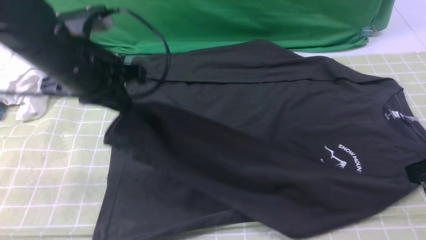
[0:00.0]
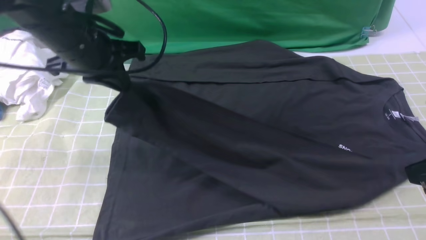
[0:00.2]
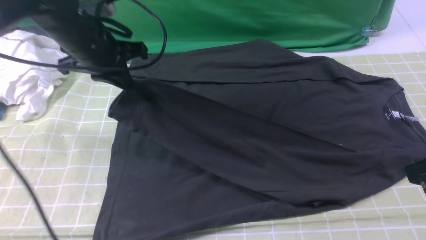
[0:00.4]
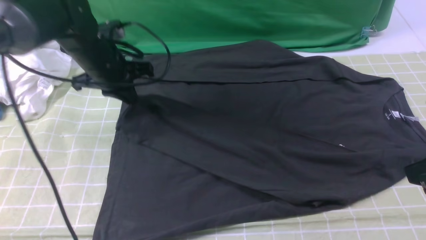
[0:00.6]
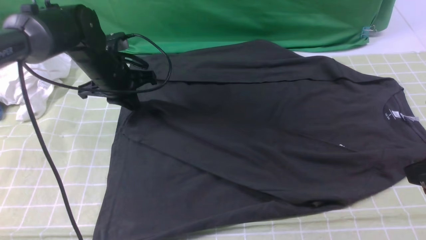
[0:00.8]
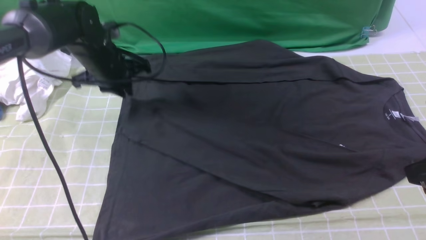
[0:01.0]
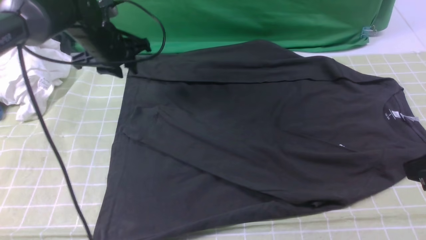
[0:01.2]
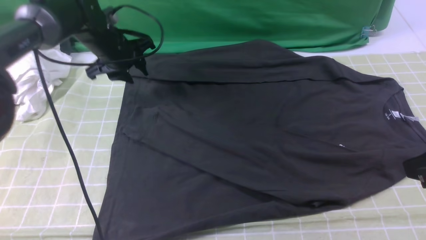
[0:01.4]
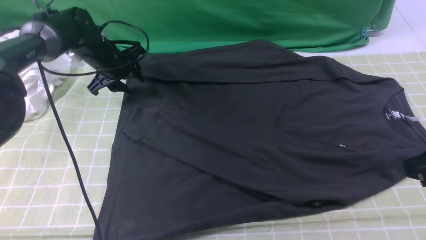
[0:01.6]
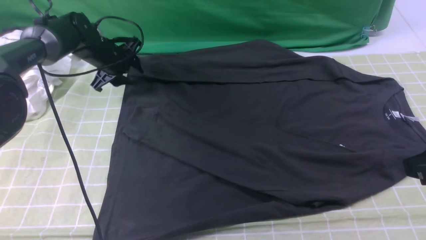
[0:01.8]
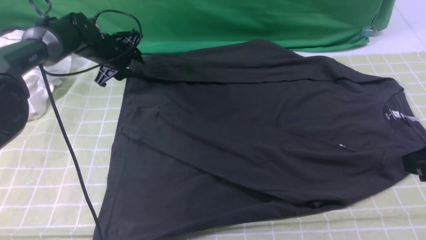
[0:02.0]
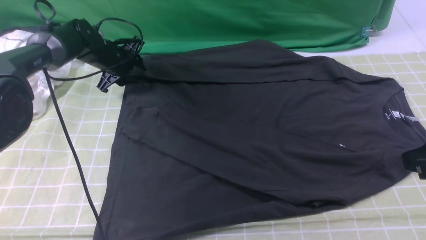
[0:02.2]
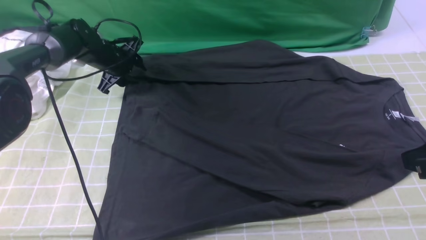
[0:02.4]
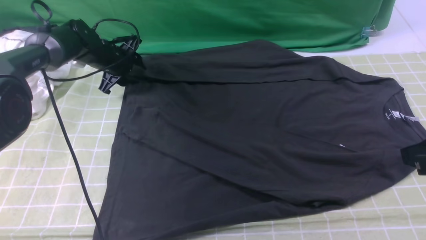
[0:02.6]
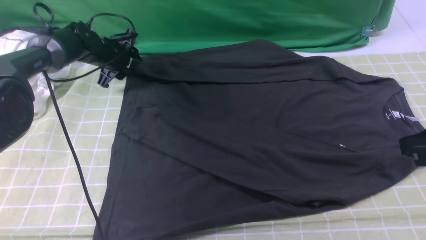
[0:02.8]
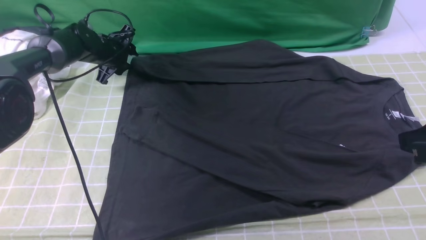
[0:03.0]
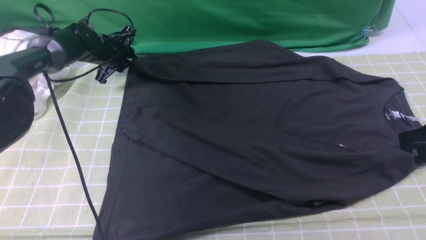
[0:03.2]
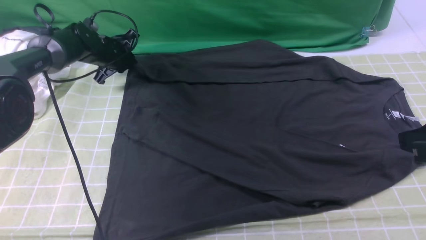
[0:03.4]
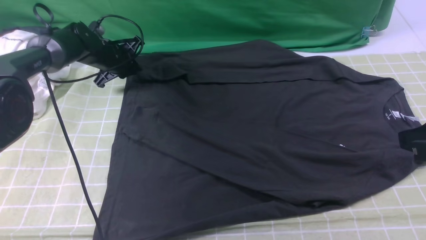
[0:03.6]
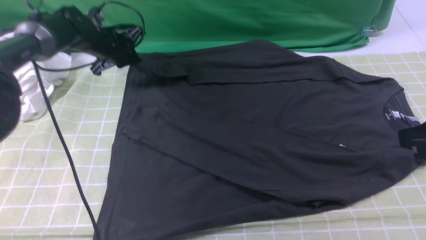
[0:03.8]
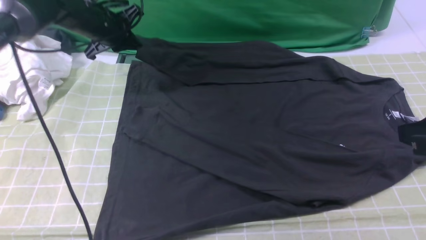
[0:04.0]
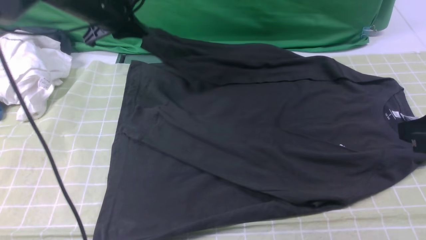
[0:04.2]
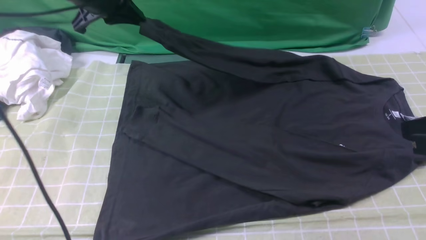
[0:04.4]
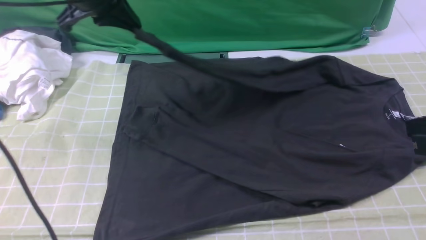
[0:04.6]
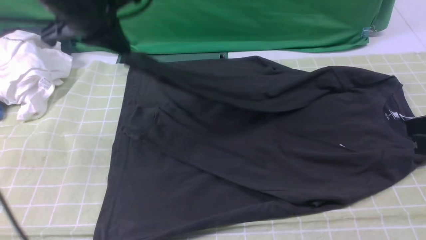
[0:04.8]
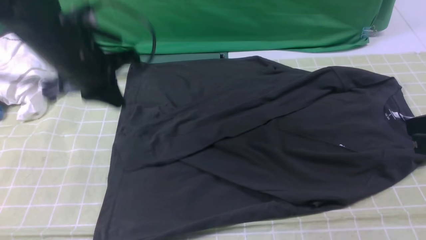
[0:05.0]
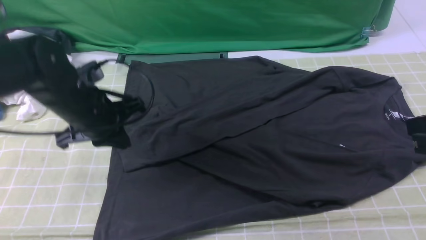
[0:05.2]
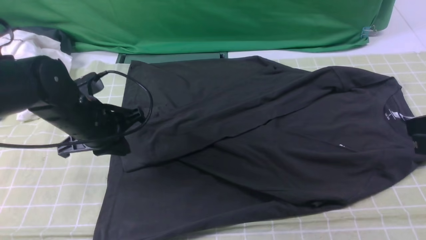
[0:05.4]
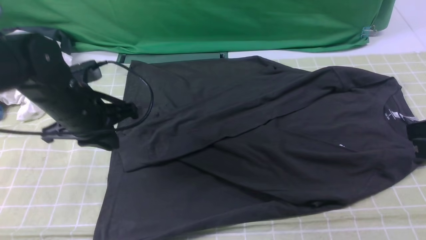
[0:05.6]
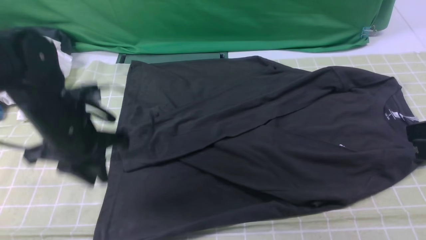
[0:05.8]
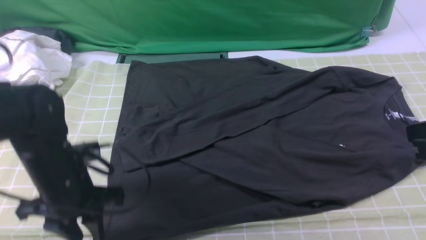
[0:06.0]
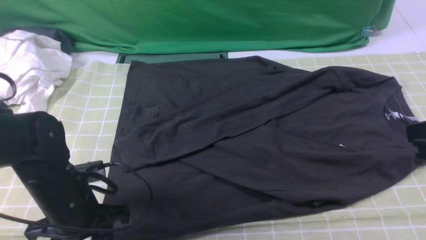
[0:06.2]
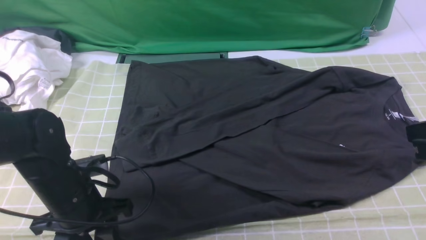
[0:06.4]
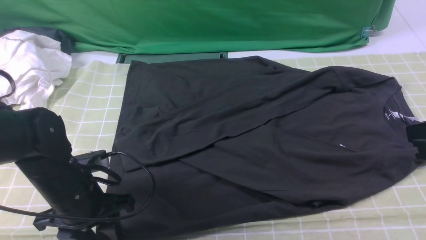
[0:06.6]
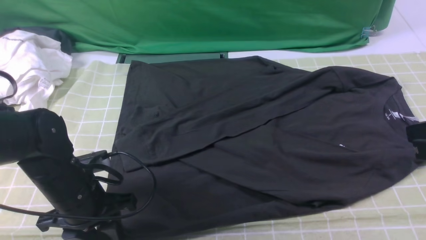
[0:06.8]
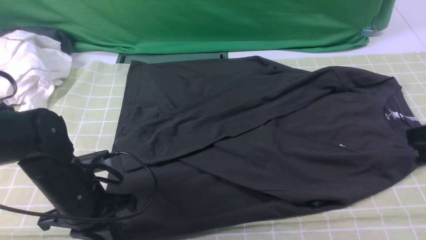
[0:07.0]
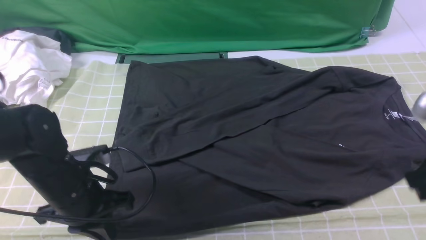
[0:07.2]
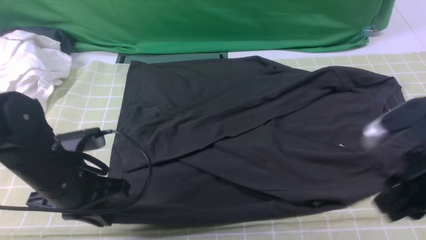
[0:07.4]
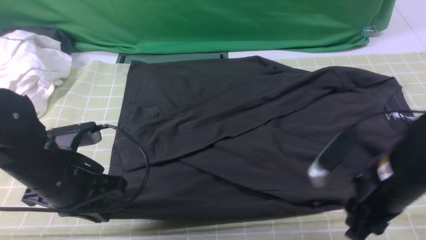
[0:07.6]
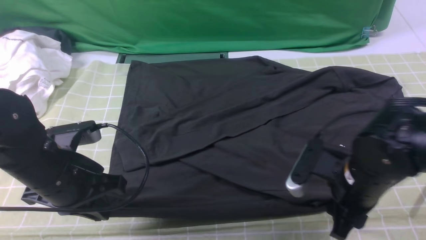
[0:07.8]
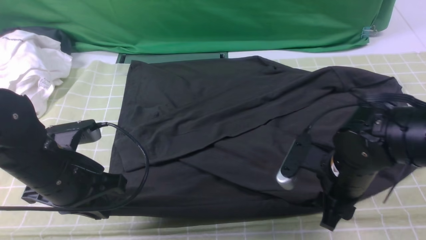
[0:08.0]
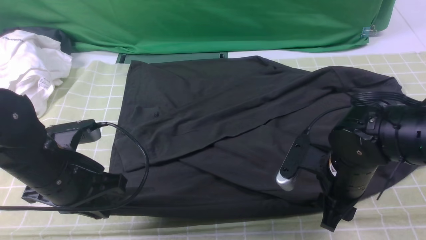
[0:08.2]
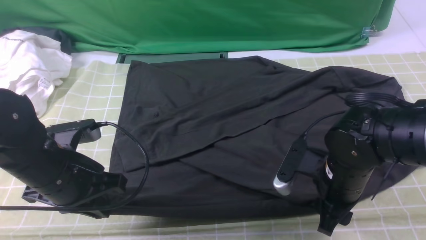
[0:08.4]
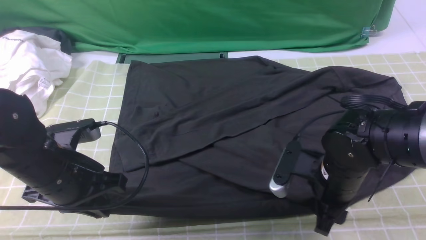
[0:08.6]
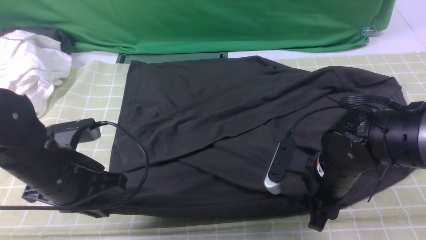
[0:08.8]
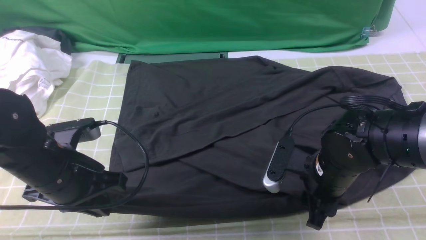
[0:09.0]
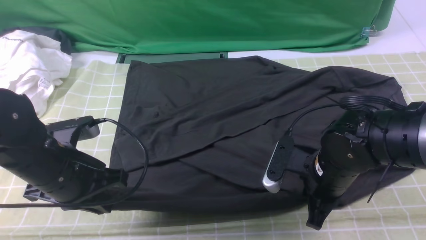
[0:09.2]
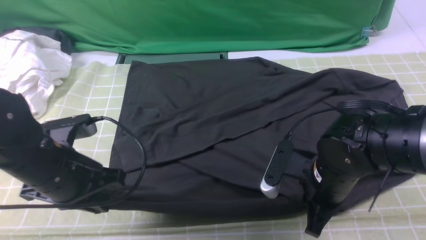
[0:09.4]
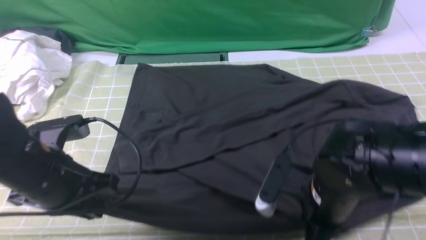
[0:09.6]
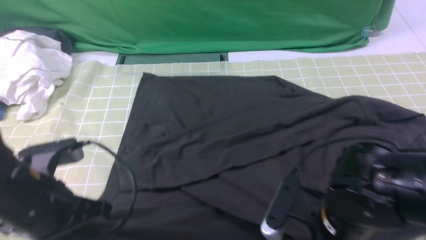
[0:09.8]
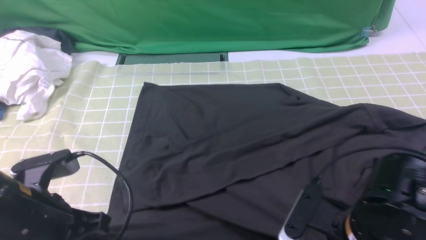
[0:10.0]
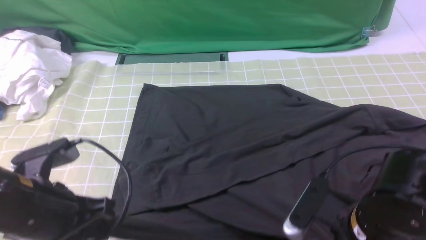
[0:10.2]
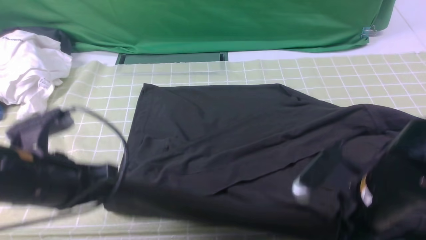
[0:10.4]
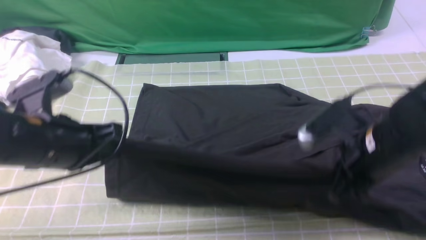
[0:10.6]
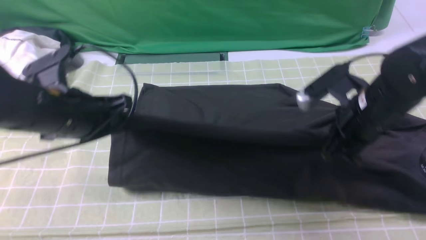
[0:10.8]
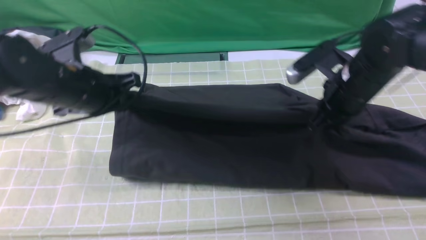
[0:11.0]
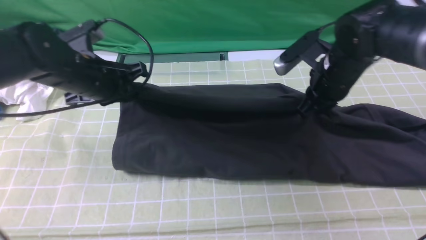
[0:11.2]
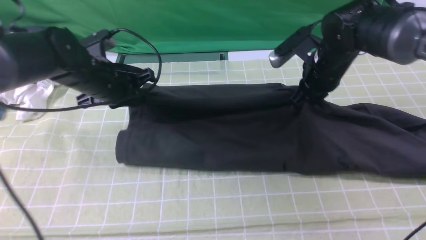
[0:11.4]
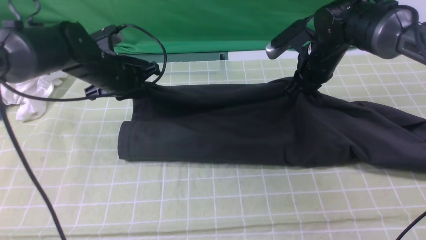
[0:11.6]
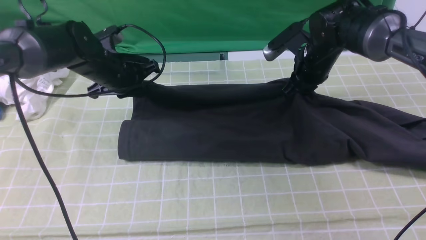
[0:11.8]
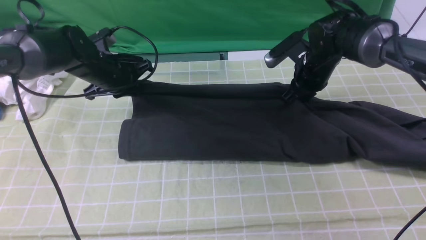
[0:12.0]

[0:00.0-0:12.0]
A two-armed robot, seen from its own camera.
Step, 0.0 to 1.0 s: use the left arm to drag and place the cuff at the centered position on the left edge of the fabric.
Step, 1.2 to 3.4 s: use the left arm to clamp the cuff farthest from it.
Step, 3.6 to 5.0 s: use the left arm to drag and drop the cuff onto the cuff closest to the left arm.
Step, 5.2 to 9.2 s: use both arms simultaneously to clamp the lower edge of the clothing fabric.
0.0 to 1.6 s: The left gripper moves forward and downward, roughly 25 cm, and opens up.
3.0 to 4.4 s: The left gripper moves upward and backward, some 20 cm, and closes up.
4.4 to 6.0 s: The left gripper is displaced backward and downward by some 25 cm, and opens up.
6.0 to 7.6 s: The left gripper closes up; the right gripper shifts roughly 15 cm downward and to the left, and opens up.
7.6 to 9.0 s: The right gripper shifts approximately 10 cm downward and to the left.
9.0 to 10.4 s: The right gripper heads backward, covering roughly 5 cm, and closes up; the left gripper ends up roughly 5 cm from where it was.
10.4 to 12.0 s: Both grippers move forward, some 25 cm.

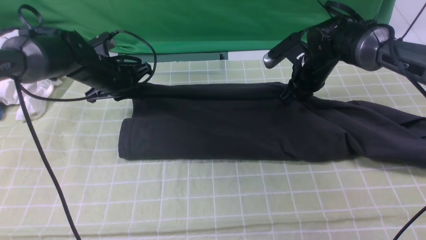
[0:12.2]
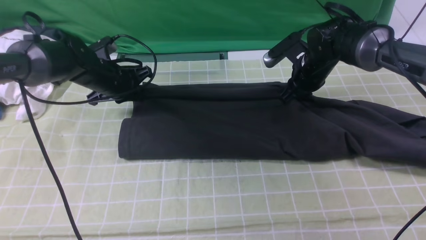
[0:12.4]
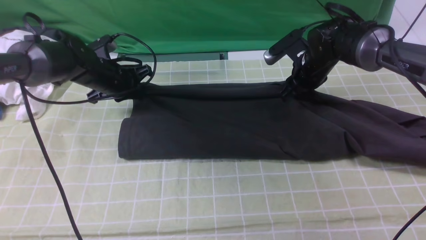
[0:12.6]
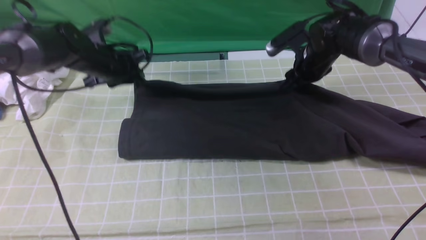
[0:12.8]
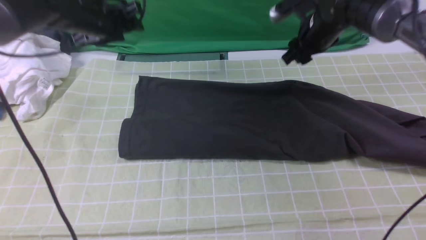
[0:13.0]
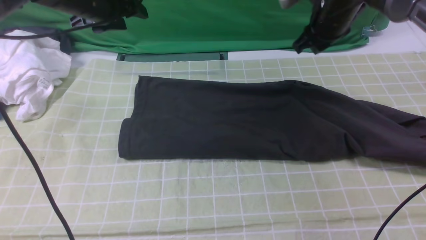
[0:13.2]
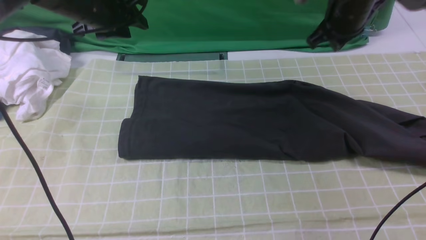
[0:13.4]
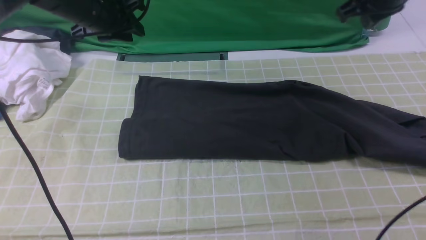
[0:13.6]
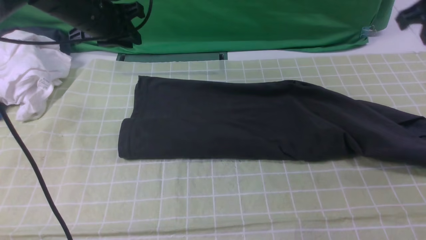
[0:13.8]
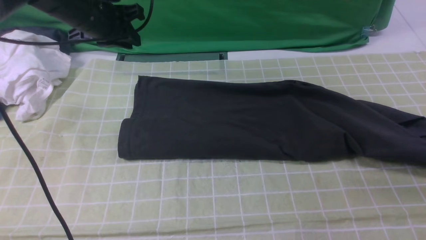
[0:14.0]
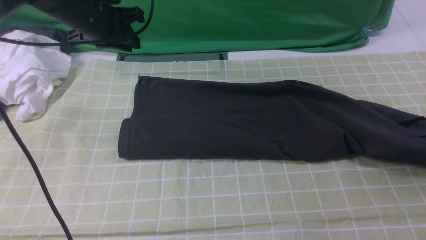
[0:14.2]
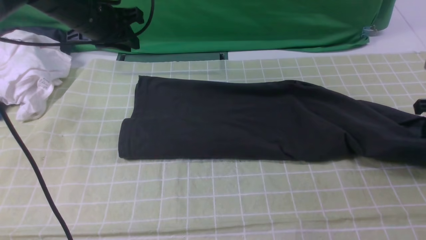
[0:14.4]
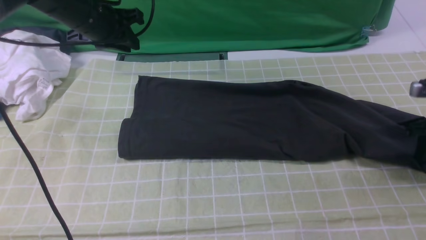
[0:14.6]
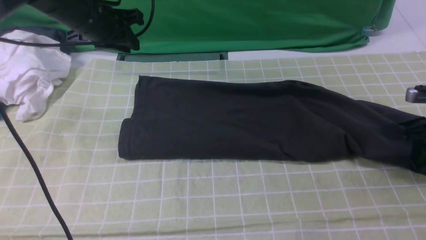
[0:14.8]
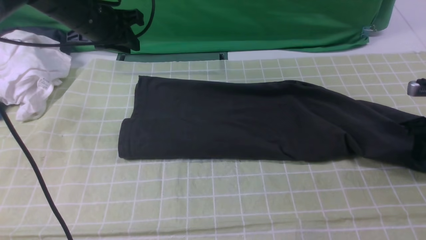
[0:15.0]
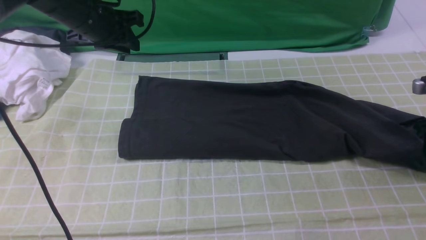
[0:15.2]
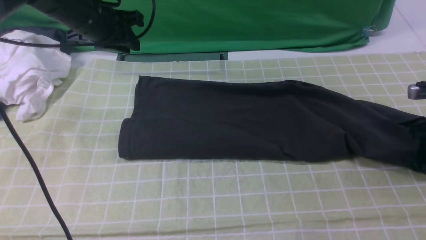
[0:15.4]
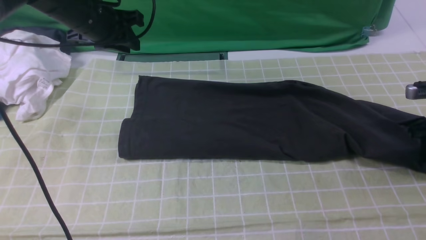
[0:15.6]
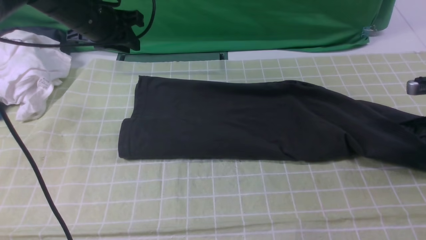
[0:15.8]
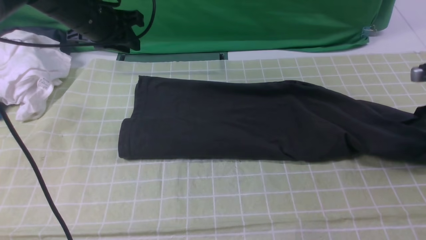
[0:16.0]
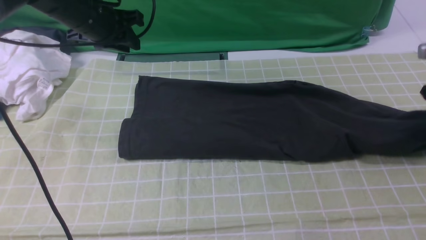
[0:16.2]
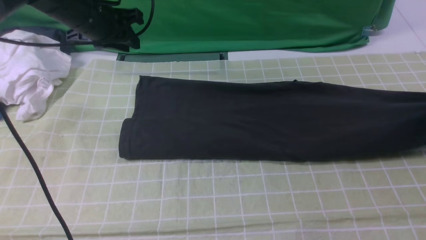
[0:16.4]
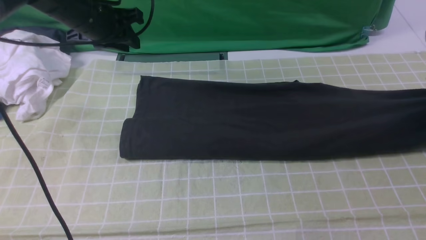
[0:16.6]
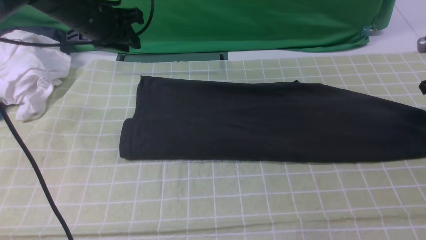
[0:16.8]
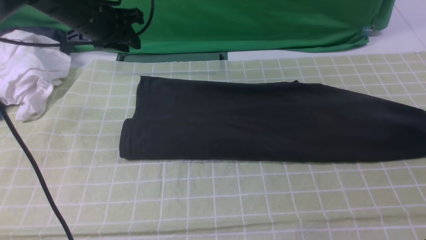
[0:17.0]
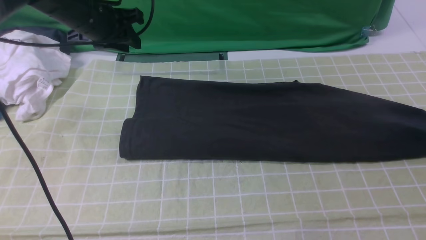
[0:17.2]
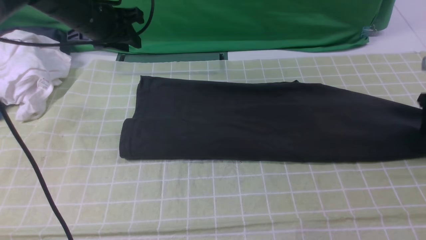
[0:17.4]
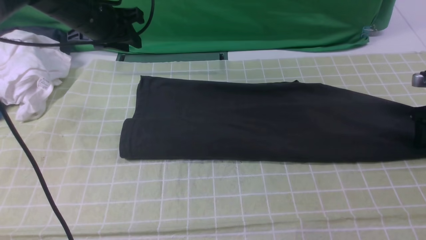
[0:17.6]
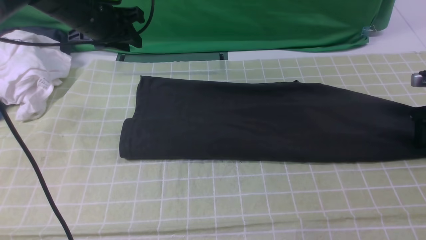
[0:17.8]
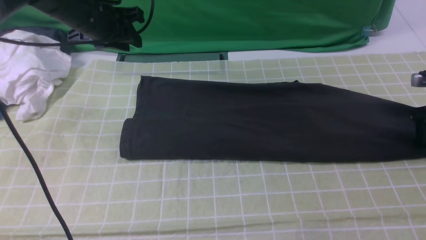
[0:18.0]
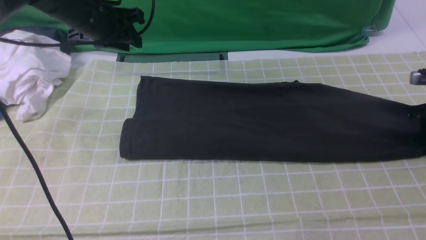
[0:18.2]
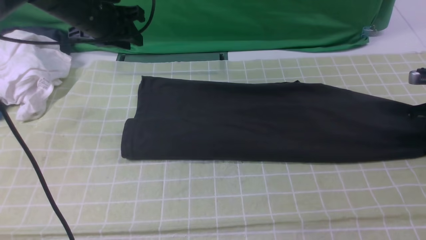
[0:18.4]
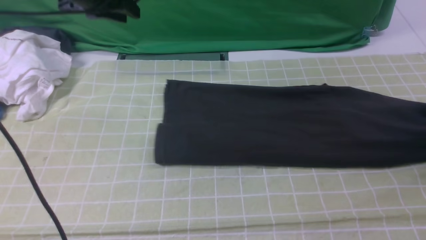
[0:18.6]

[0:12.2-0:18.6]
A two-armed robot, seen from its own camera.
Step, 13.2 to 18.4 s: use the right arm to clamp the right edge of the fabric.
12.2 to 13.8 s: The right gripper moves upward, to the right and backward, approximately 25 cm, and opens, then closes once more; the left gripper moves upward, about 15 cm, and opens its fingers.
13.8 to 15.4 s: The right gripper is displaced downward and to the right by some 20 cm, and opens.
15.4 to 17.0 s: The right gripper is displaced upward and forward by some 10 cm, and closes, then opens again.
17.0 to 18.6 s: The right gripper closes its fingers. Meanwhile the left gripper heads upward, covering about 5 cm.
